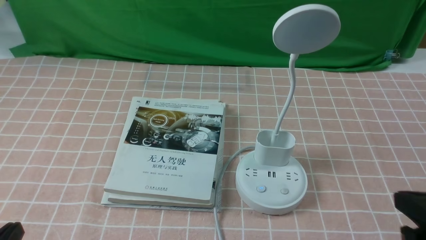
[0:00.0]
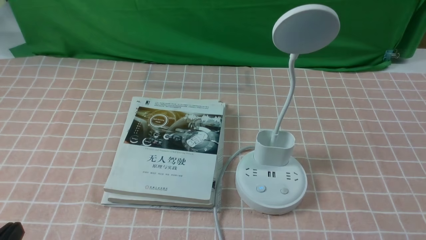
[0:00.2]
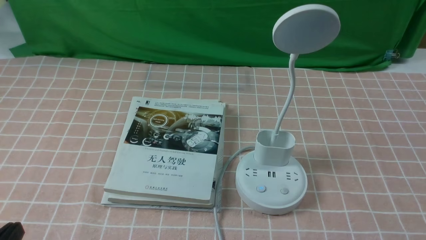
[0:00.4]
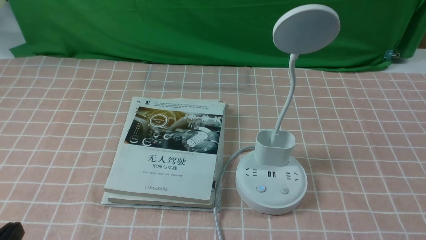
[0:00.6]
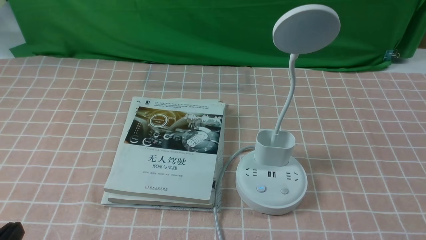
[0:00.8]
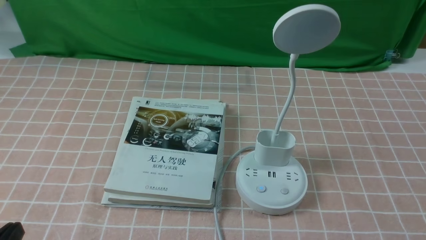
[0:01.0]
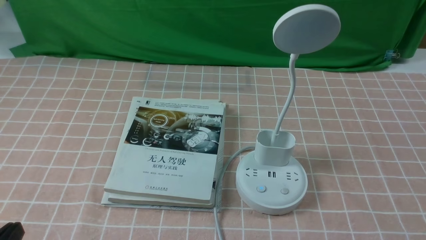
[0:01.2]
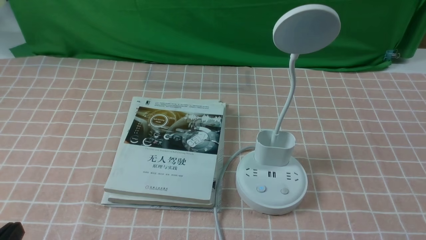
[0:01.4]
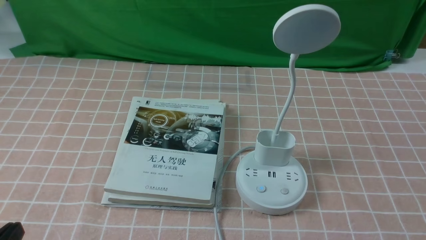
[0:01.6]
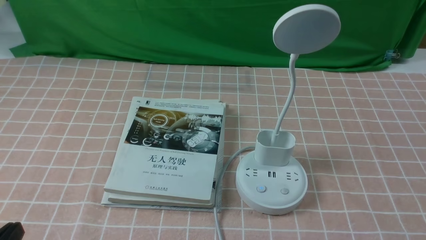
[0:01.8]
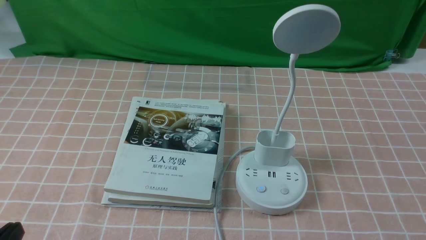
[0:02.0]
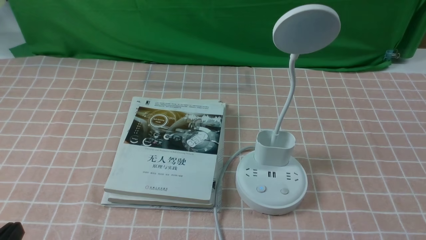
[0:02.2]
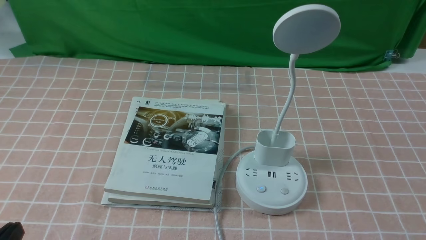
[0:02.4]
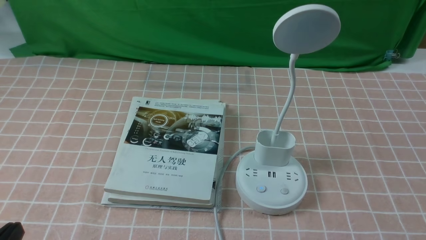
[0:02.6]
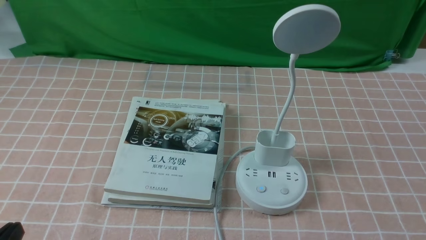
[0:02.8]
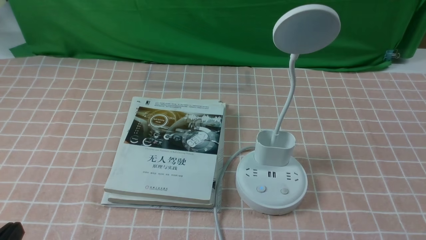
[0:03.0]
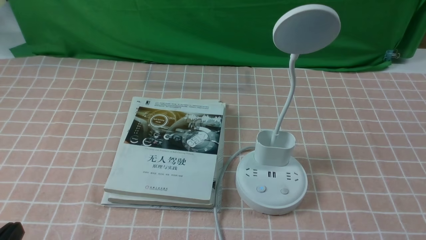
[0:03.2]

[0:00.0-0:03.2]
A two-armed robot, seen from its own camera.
Task of the whole recording: turn off the table lamp on the pink coffee tablecloth by hand.
0:00.0 to 0:01.6: The right gripper goes roughly 10 cm downward and backward.
